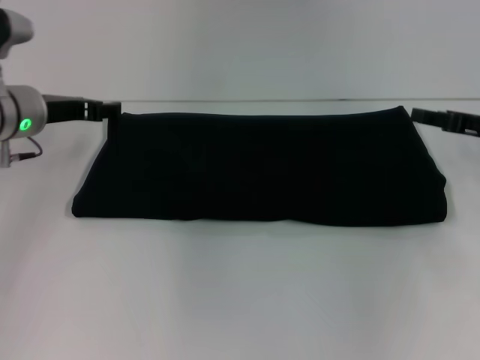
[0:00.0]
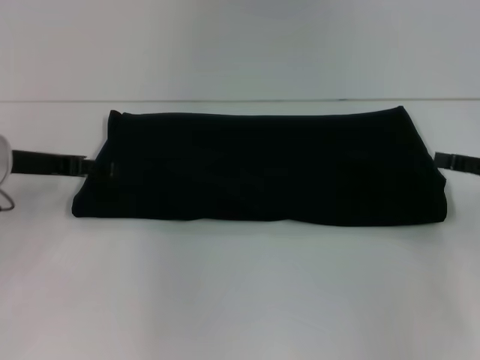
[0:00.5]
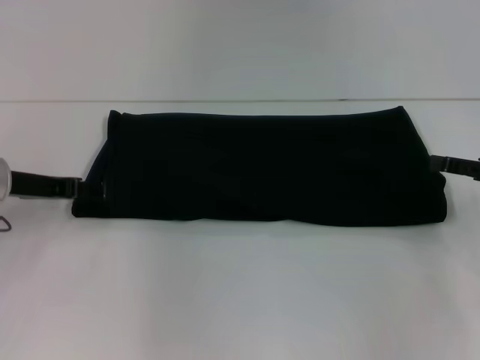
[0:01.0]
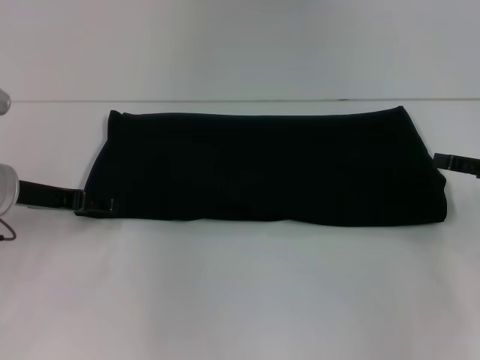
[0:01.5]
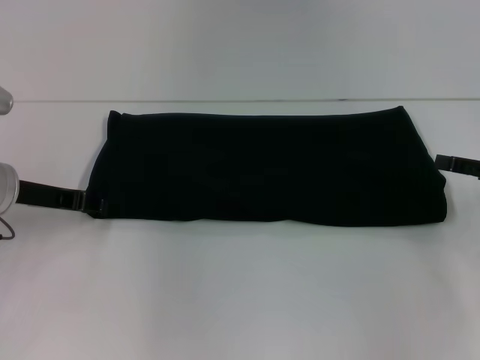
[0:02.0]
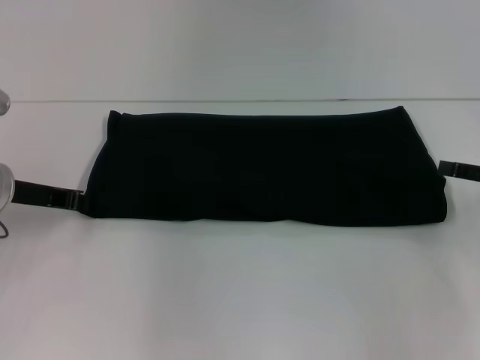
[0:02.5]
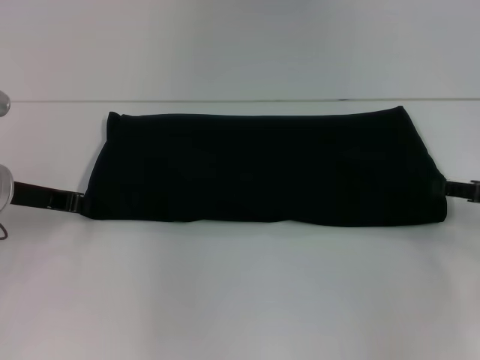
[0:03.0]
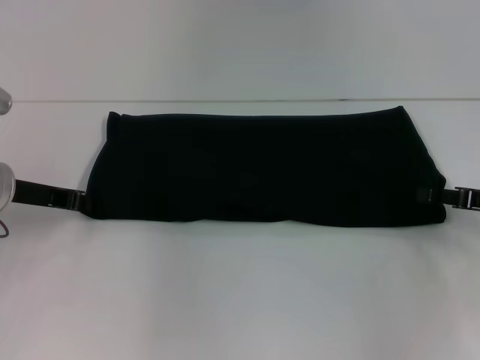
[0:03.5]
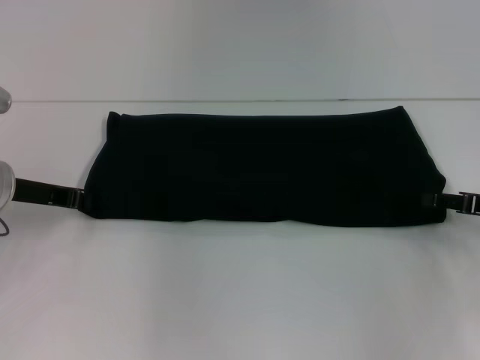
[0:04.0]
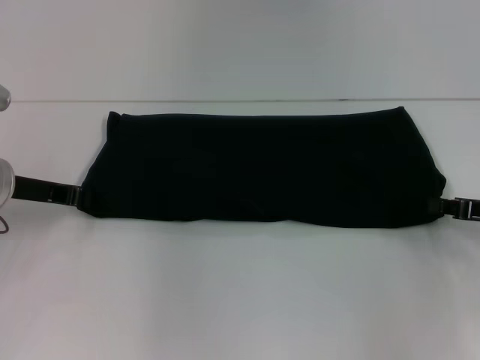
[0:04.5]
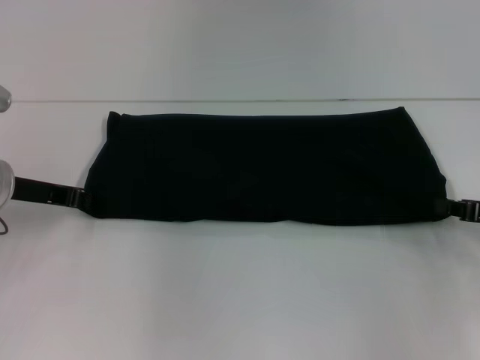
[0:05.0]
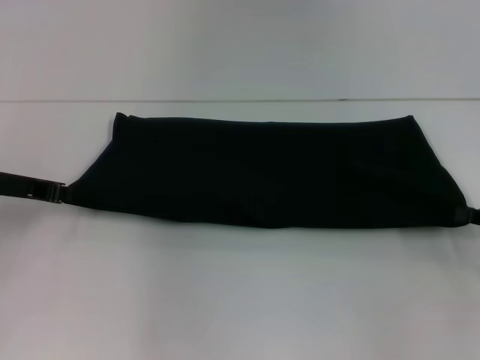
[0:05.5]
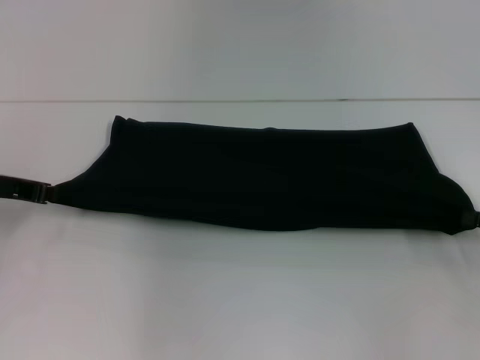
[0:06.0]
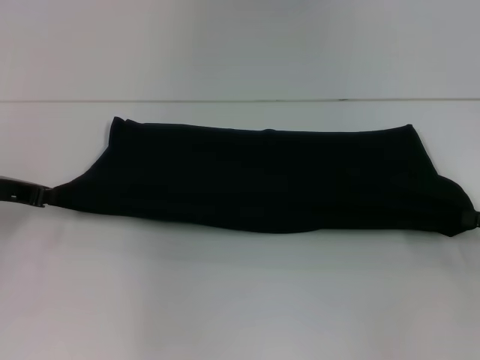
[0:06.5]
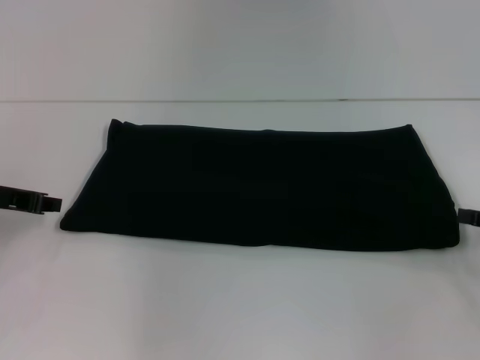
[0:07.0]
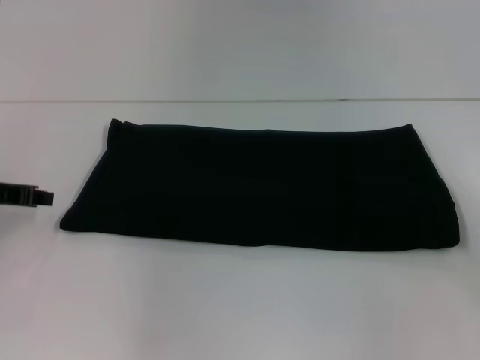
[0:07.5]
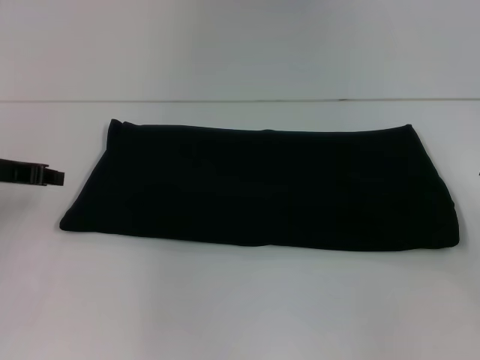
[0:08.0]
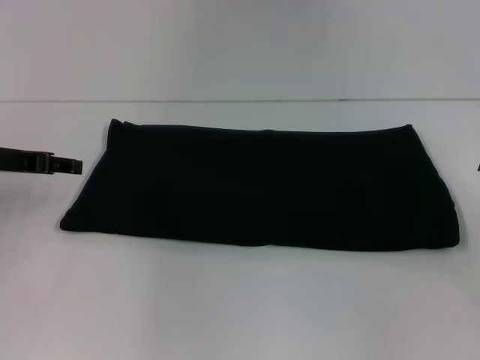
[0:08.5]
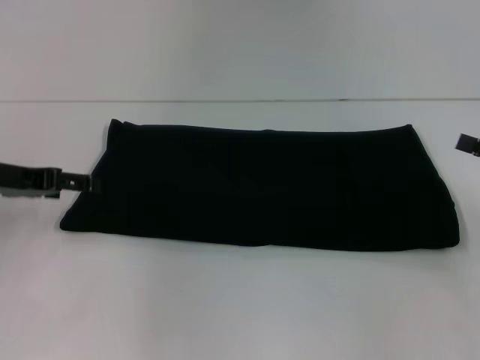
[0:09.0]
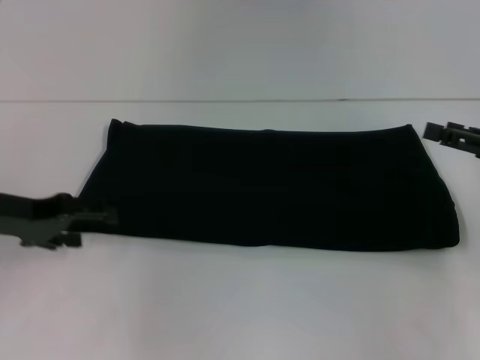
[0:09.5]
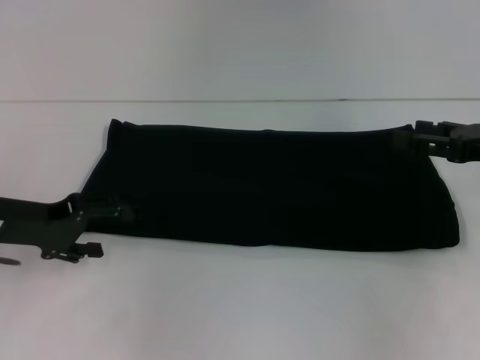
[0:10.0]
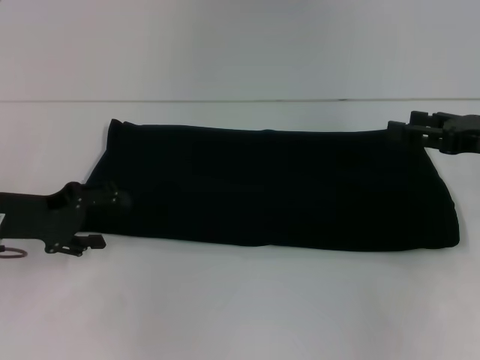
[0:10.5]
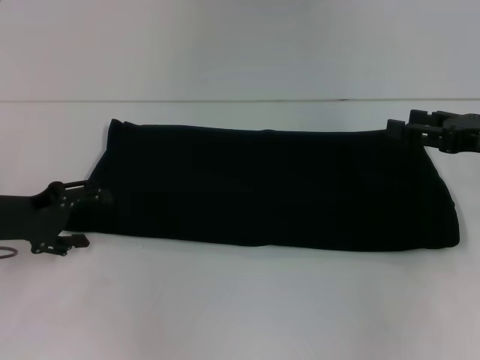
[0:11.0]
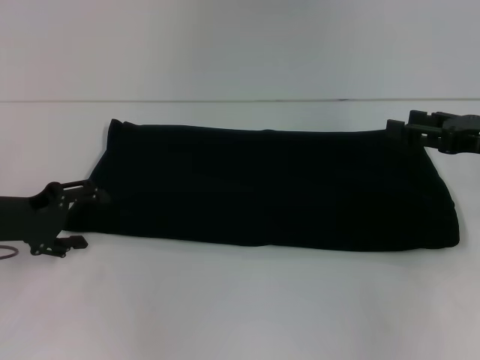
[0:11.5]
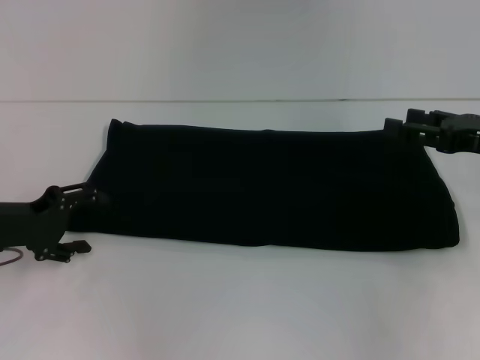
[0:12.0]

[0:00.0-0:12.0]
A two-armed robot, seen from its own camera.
0:00.0 to 0:02.0: Both grippers move backward, some 5 cm.
0:02.0 to 0:04.0: The left gripper closes up.
0:04.0 to 0:06.0: The right gripper closes up.
0:06.0 to 0:08.0: The right gripper opens up.
0:08.0 to 0:10.0: The right gripper heads to the left and forward, covering approximately 10 cm. The left gripper changes place by some 5 cm, and opens its fingers.

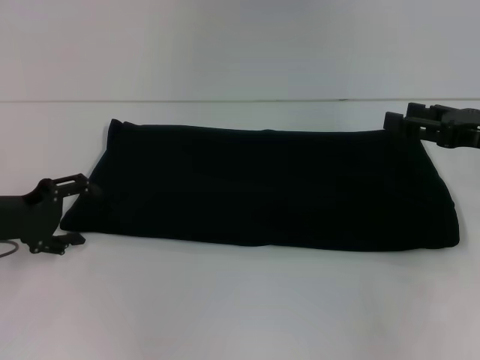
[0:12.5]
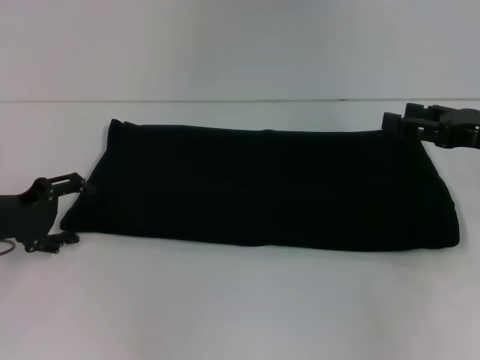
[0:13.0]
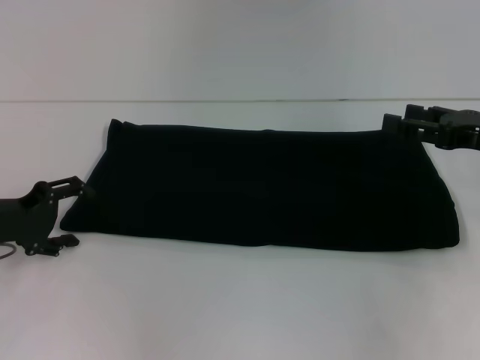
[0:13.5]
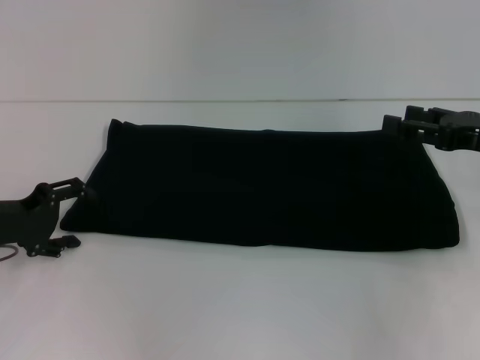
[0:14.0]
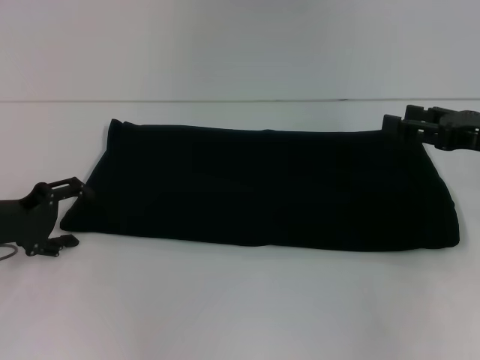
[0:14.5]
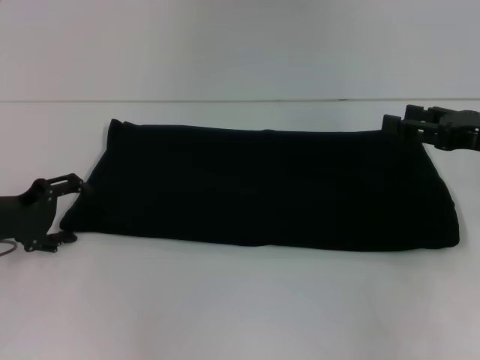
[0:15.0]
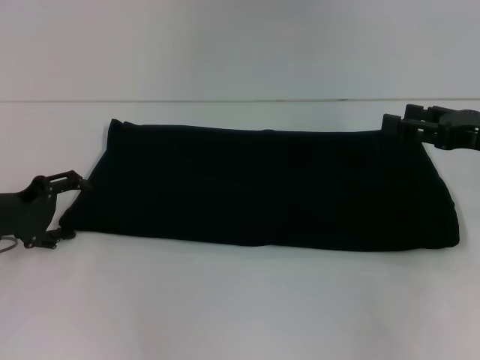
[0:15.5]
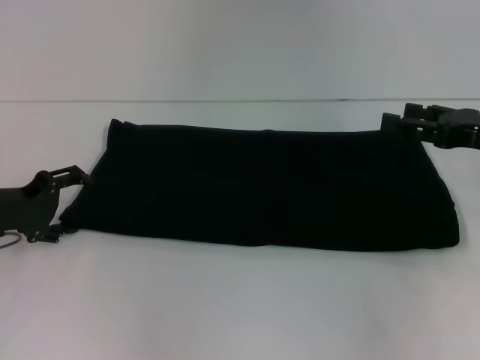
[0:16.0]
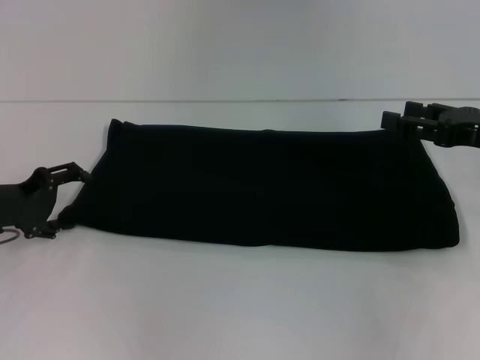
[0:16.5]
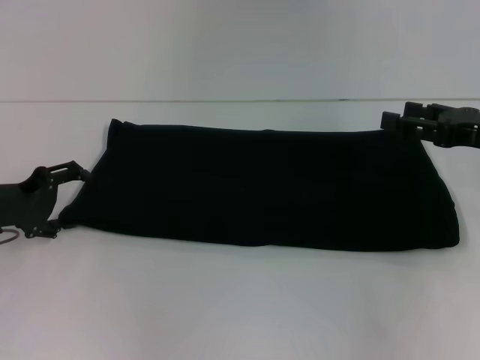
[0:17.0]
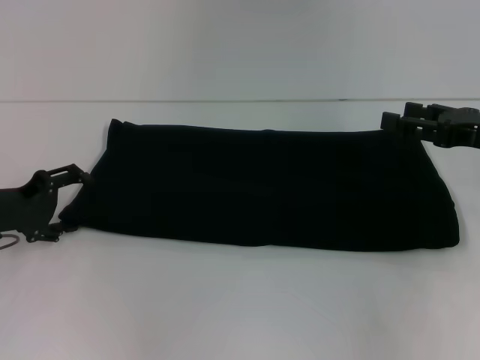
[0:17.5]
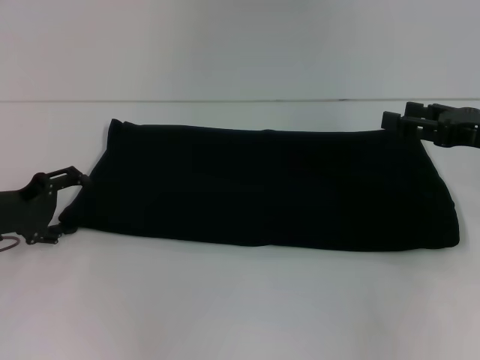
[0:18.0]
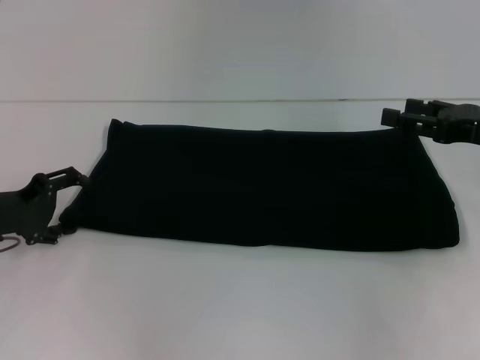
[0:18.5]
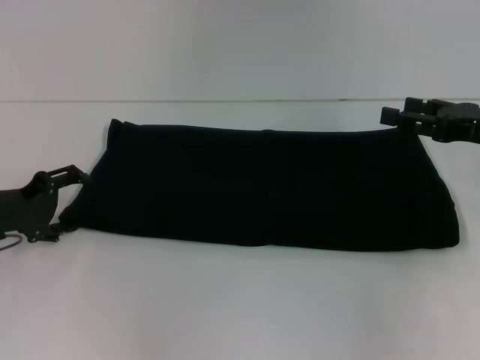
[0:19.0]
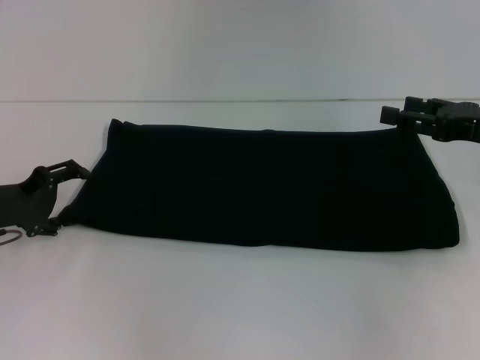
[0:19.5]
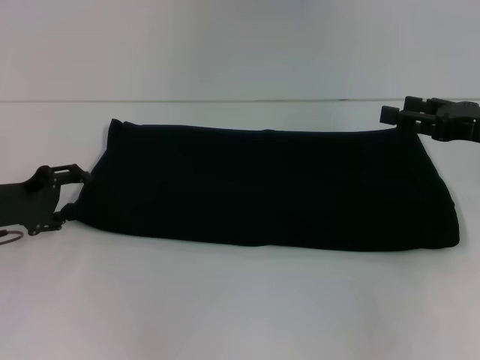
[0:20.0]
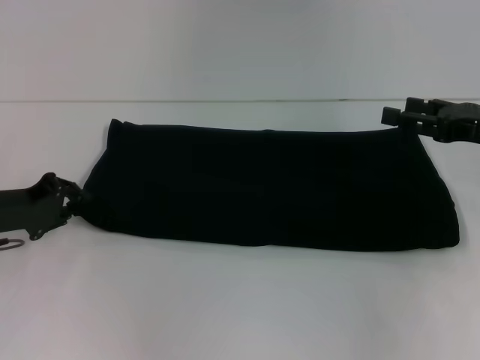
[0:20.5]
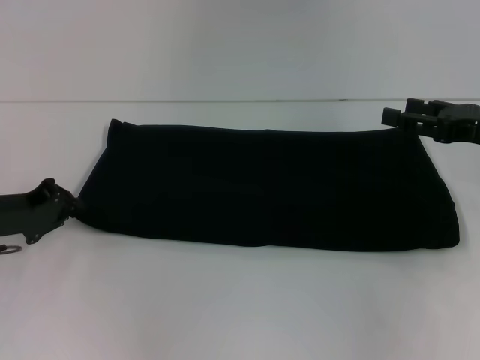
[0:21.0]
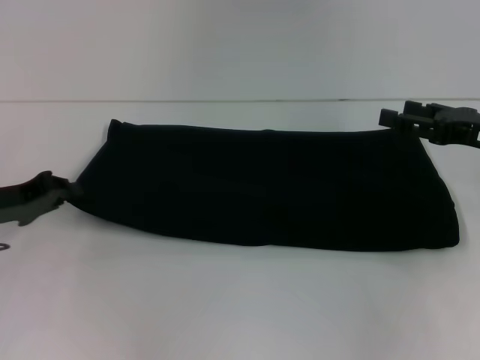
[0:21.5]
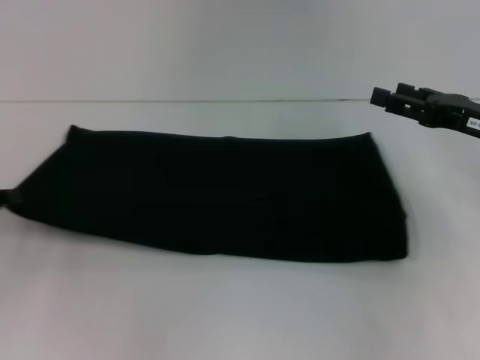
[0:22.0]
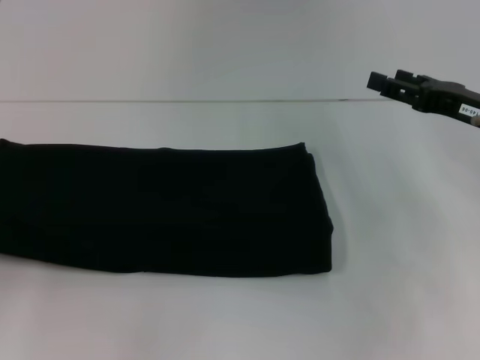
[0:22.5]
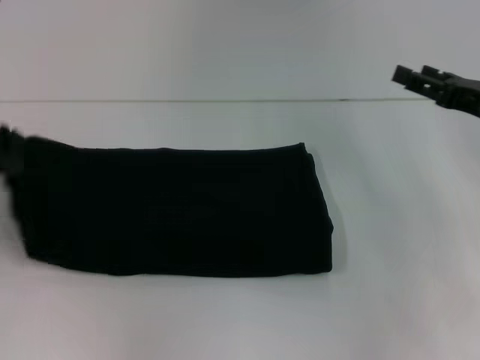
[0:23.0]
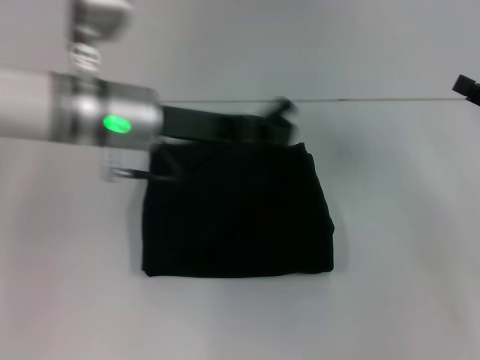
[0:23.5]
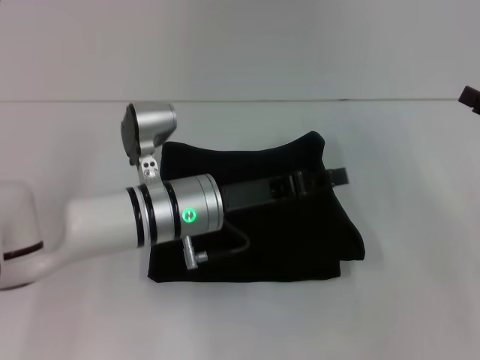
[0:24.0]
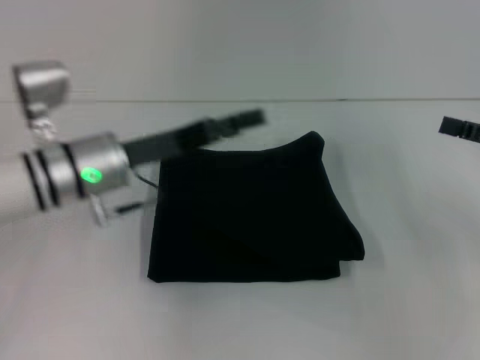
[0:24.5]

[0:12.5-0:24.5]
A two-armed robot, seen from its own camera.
Step, 0:12.5 to 0:24.0: Fold the clothes with your left hand.
0:12.5 to 0:14.5: The two grippers keep their place.
0:14.5 to 0:16.5: Both grippers stay put.
0:16.5 to 0:18.5: The two grippers keep their place.
0:18.5 to 0:20.5: The left gripper closes its fingers.
0:20.5 to 0:22.5: The left gripper shifts some 15 cm to the left and backward.
0:22.5 to 0:24.5: The left gripper moves to the right, about 25 cm, and opens its fingers. The right gripper is displaced to the right by some 10 cm.

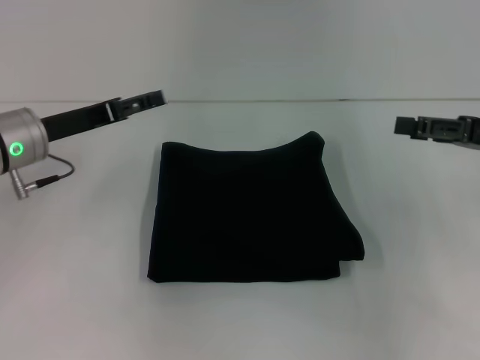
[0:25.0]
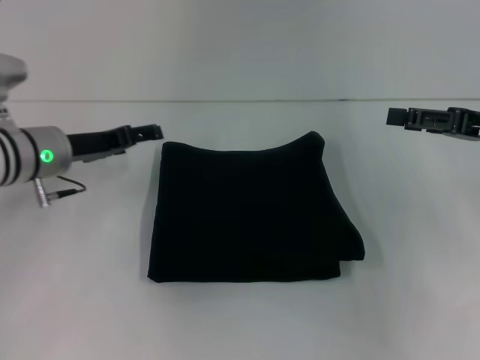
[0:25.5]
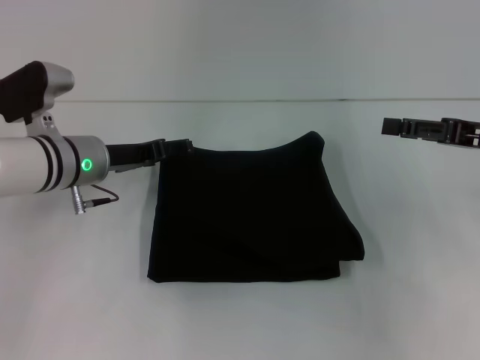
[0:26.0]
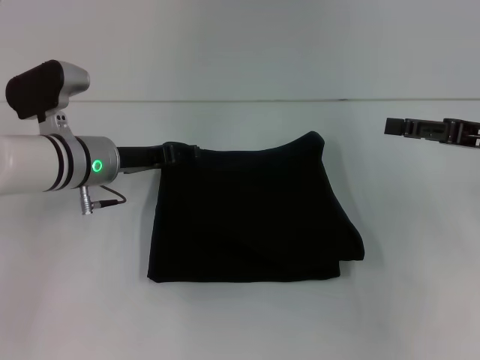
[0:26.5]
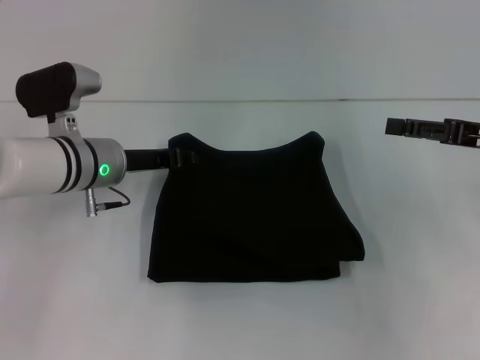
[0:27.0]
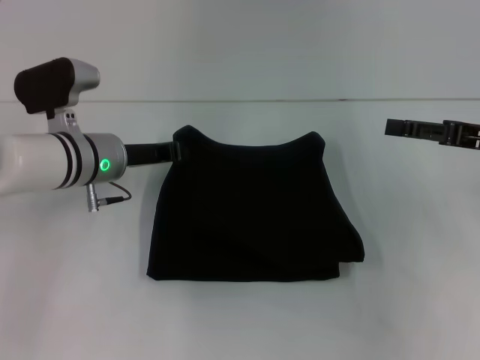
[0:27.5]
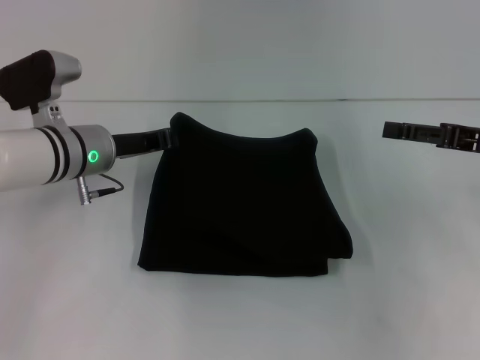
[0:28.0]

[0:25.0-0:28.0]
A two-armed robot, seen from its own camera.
0:25.0 to 0:26.5: The left gripper heads to the right, covering roughly 5 cm.
0:26.5 to 0:28.0: The left gripper closes its fingers.
